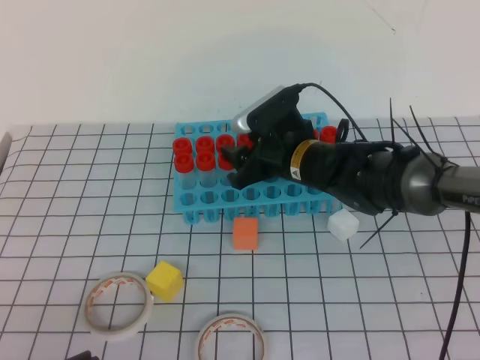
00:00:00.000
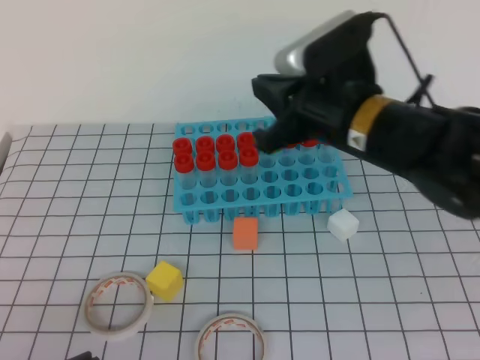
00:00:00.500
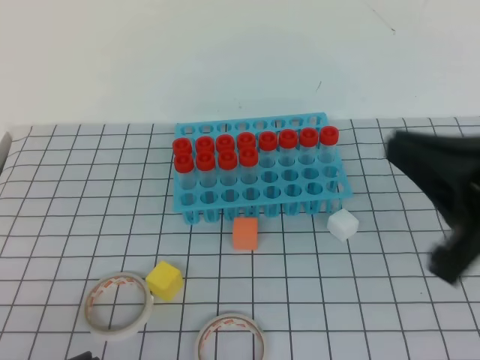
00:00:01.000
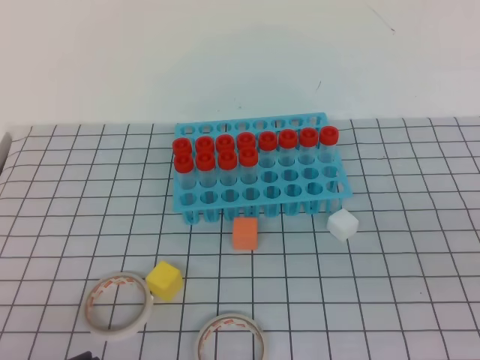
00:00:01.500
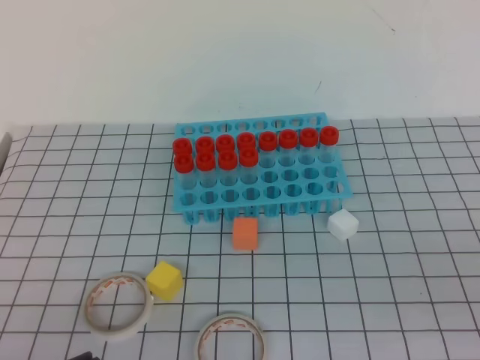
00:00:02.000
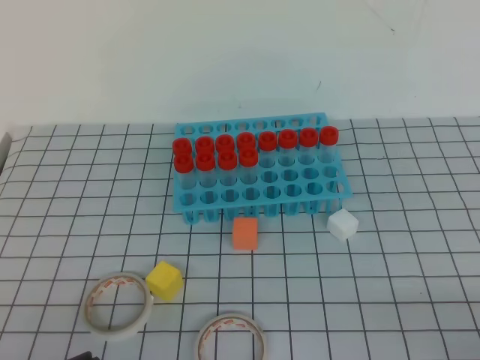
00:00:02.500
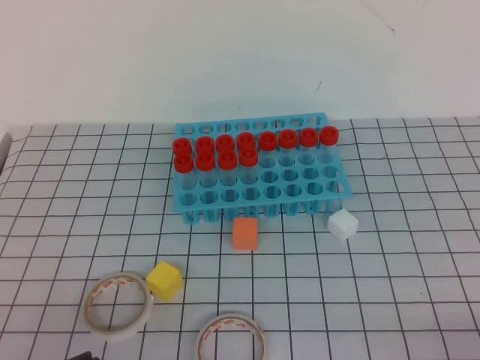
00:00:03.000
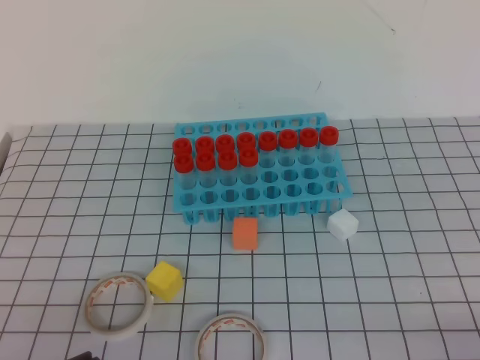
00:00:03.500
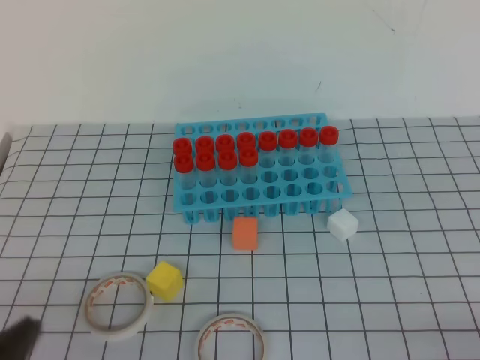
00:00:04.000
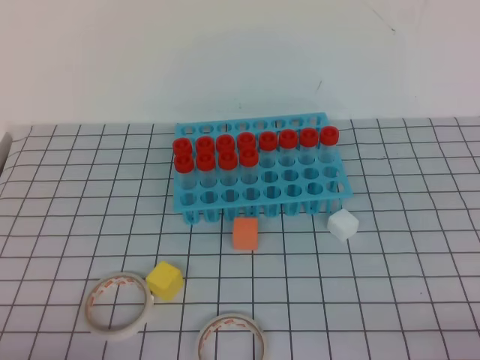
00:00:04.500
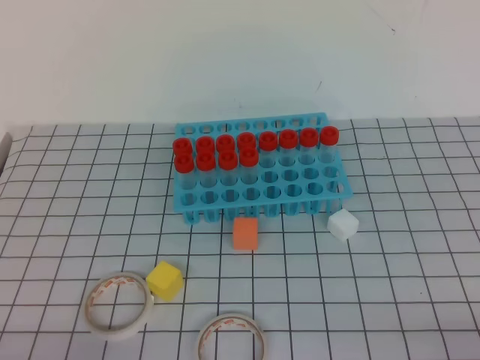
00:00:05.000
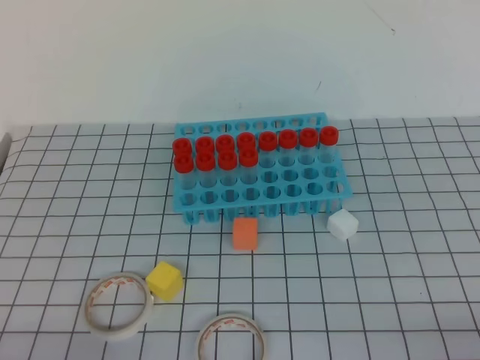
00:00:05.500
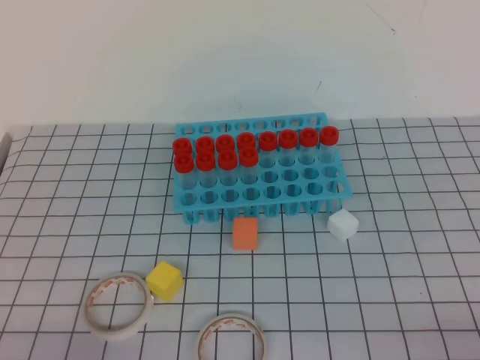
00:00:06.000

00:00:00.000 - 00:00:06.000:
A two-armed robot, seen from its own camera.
00:00:00.000 - 00:00:02.000: The right gripper shifts approximately 40 cm backward and to the right, and closes.
00:00:04.000 - 00:00:06.000: The left gripper shifts roughly 5 cm downward.
